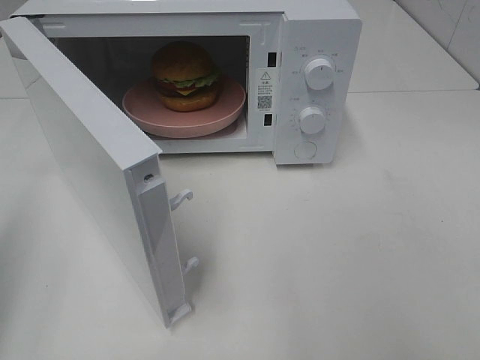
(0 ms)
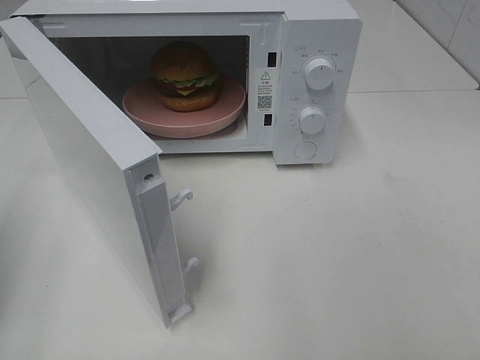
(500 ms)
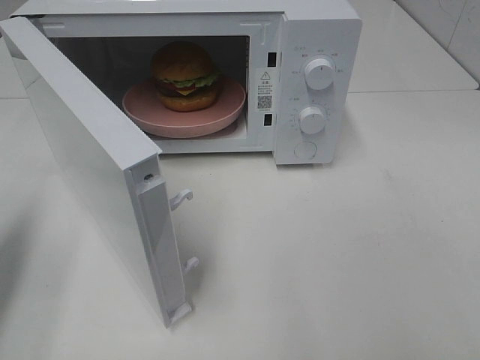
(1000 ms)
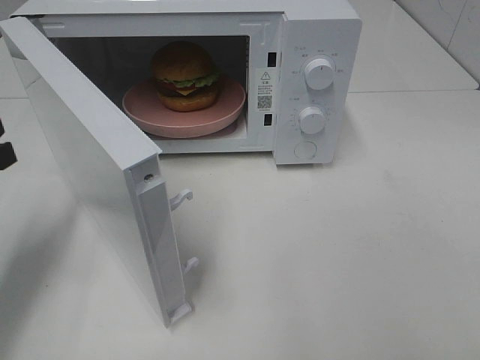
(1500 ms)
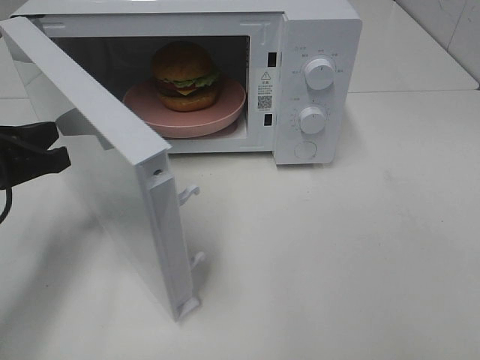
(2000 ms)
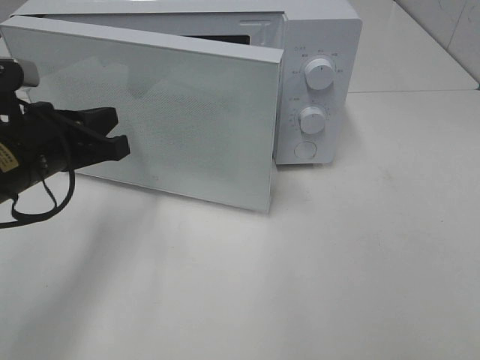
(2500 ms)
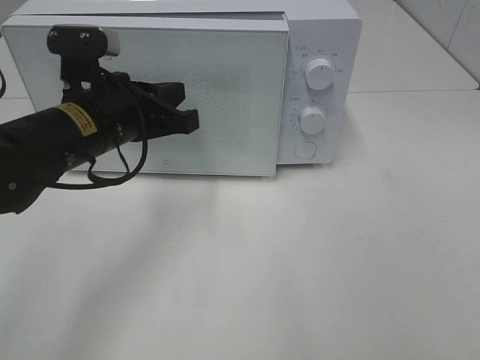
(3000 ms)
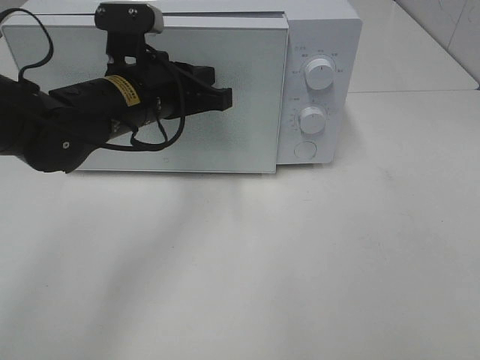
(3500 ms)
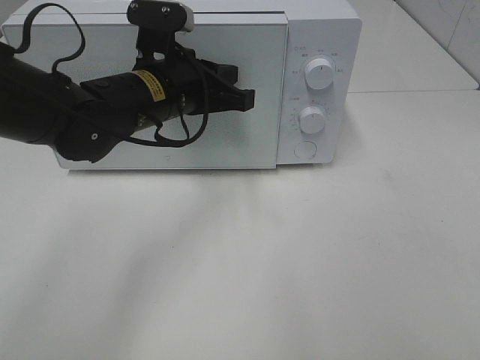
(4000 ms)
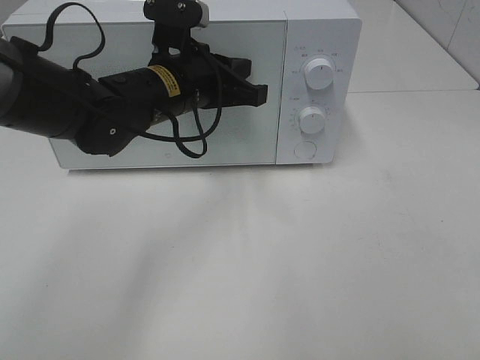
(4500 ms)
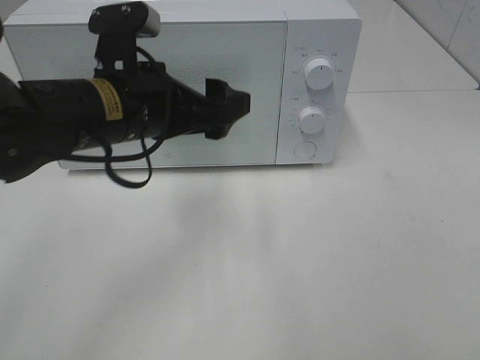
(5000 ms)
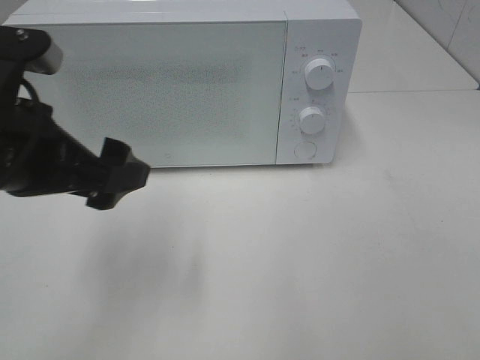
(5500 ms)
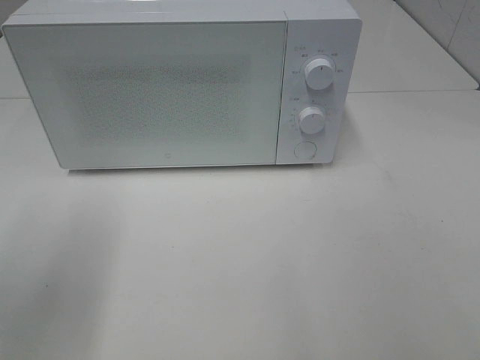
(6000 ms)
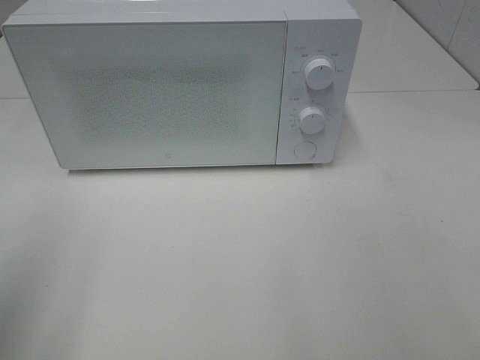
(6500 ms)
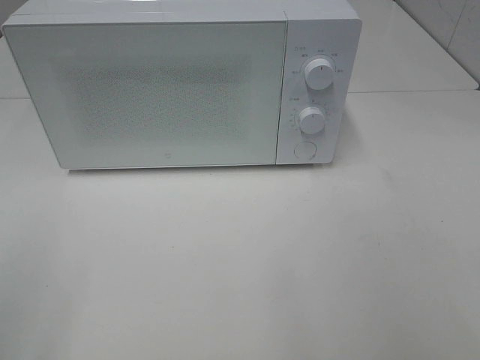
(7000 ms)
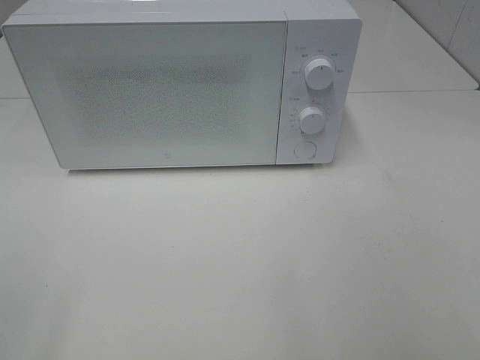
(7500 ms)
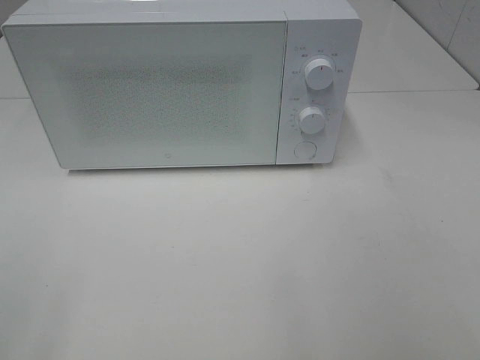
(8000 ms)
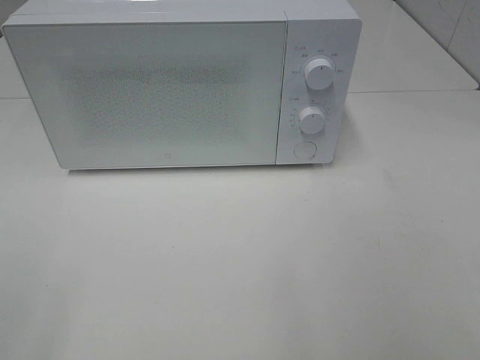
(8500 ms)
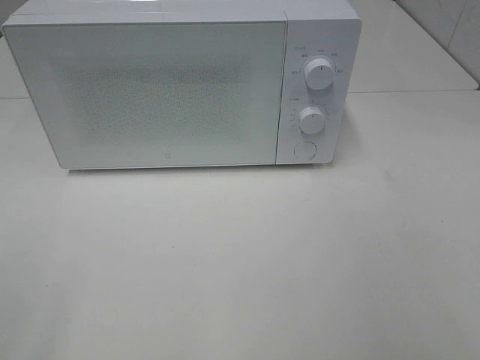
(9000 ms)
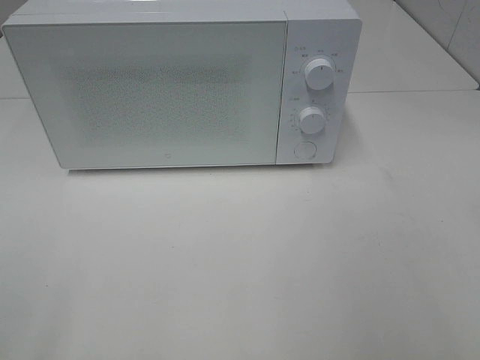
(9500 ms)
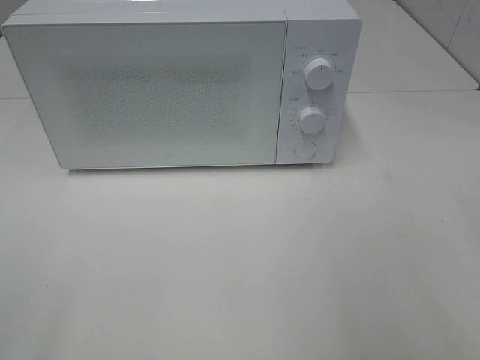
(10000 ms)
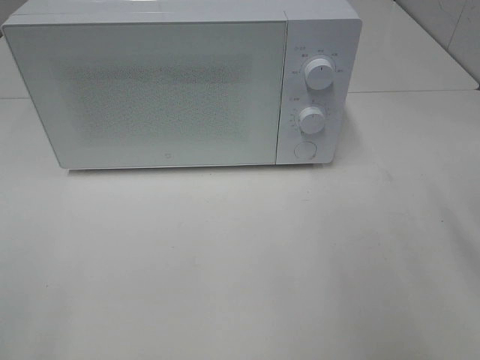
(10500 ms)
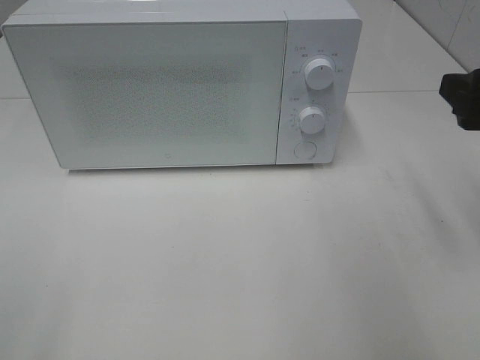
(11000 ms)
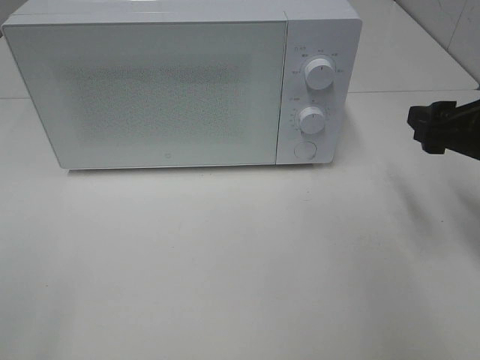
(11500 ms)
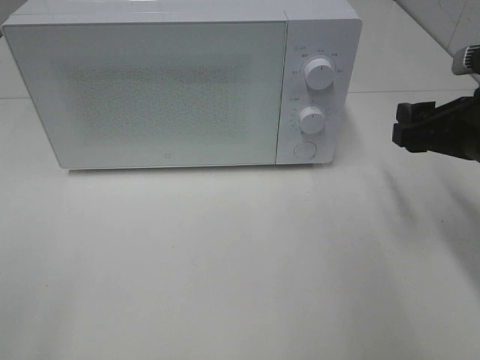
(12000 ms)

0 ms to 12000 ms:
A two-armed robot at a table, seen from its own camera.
Task of the whole recording: Heat the burger.
Step, 0 ms to 4500 ms: Left hand: close the microwave door.
0 ms to 2000 ms: The left gripper travels forward, downward and to the right by approximately 20 cm.
2000 ms to 4000 ms: The left gripper heads to the right and forward, covering roughly 20 cm.
4000 ms to 6000 ms: The left gripper travels to the left, backward and upward by approximately 25 cm, and opens.
6000 ms to 8000 ms: The left gripper is displaced backward by approximately 15 cm.
10000 ms to 12000 ms: The right gripper moves forward and downward, about 20 cm.

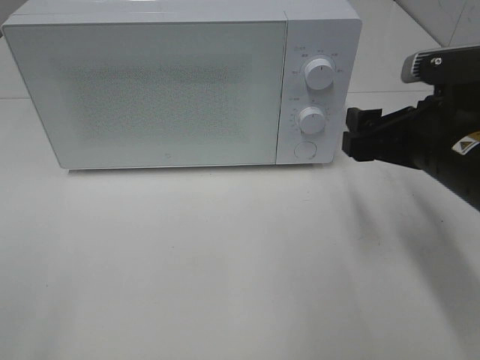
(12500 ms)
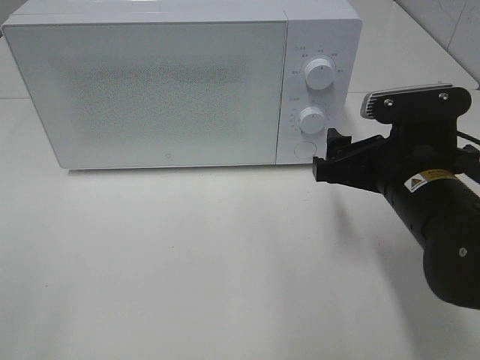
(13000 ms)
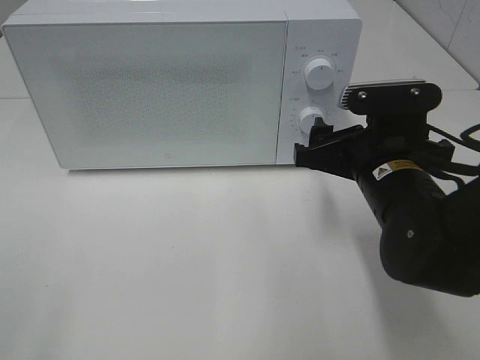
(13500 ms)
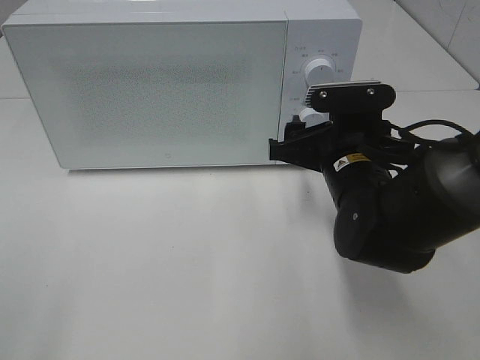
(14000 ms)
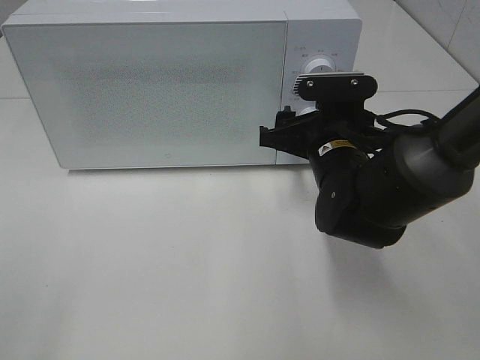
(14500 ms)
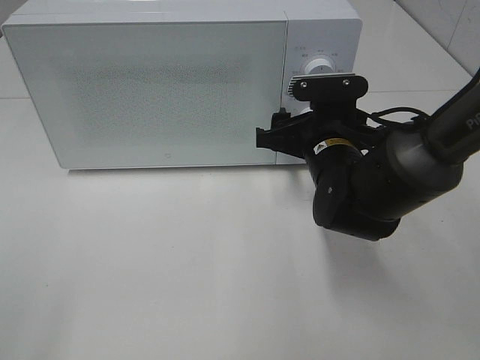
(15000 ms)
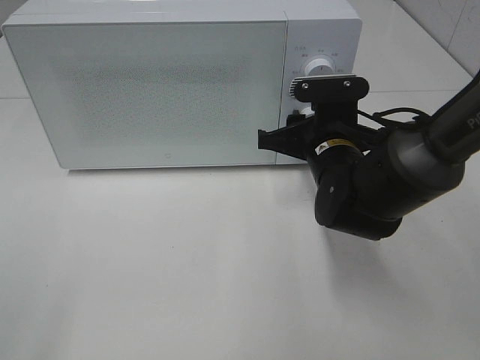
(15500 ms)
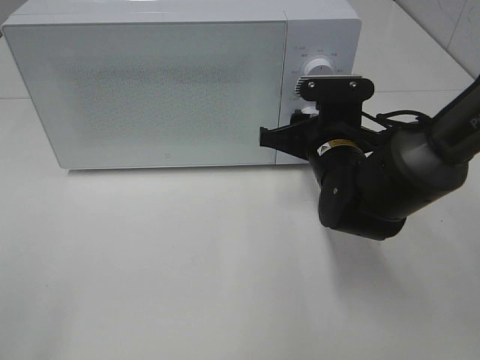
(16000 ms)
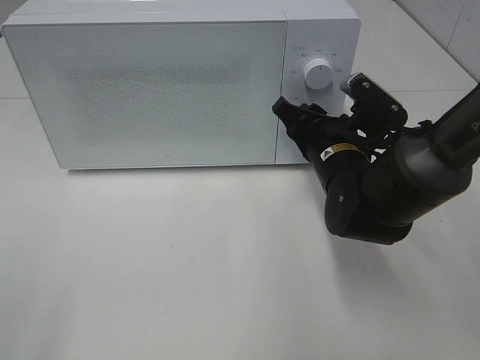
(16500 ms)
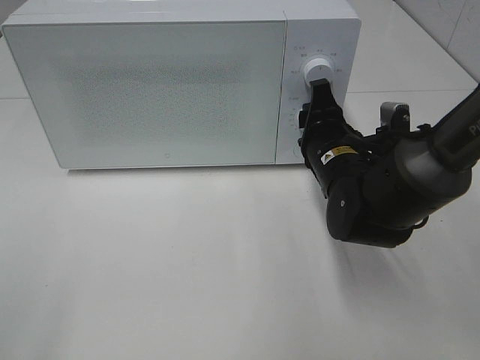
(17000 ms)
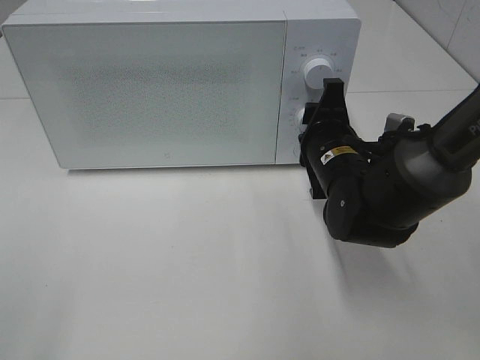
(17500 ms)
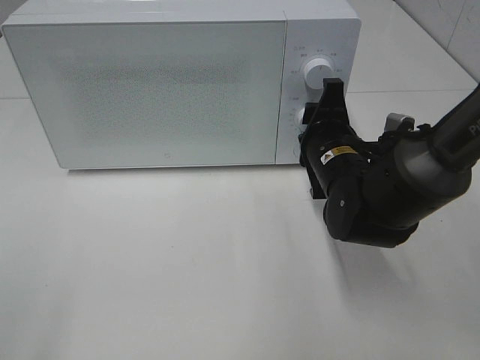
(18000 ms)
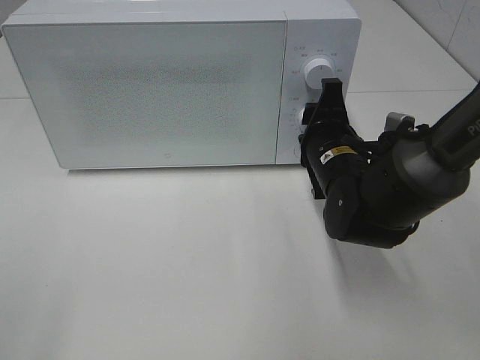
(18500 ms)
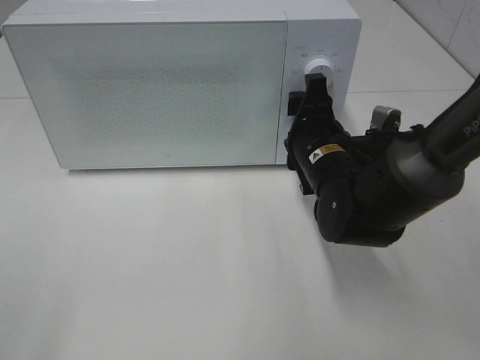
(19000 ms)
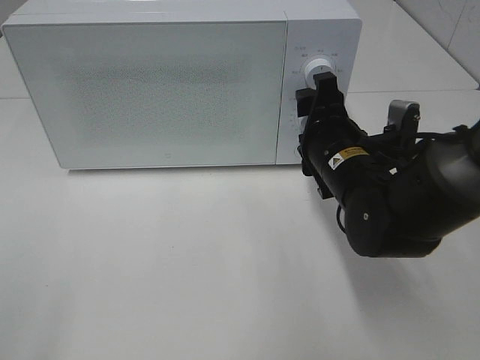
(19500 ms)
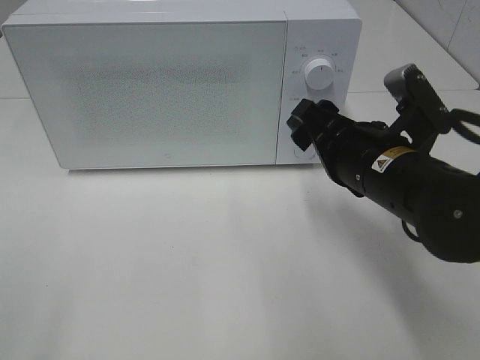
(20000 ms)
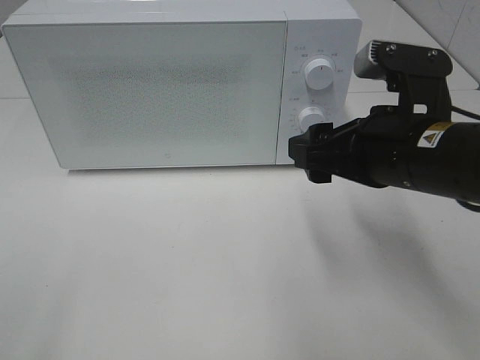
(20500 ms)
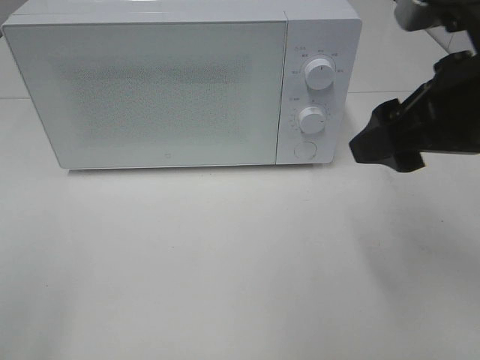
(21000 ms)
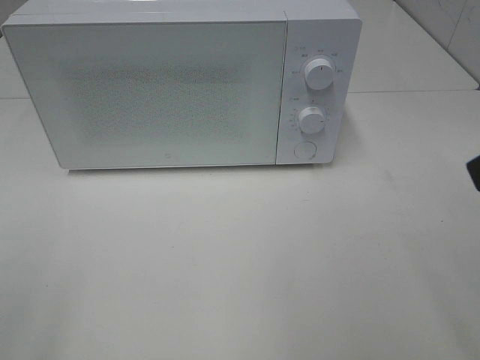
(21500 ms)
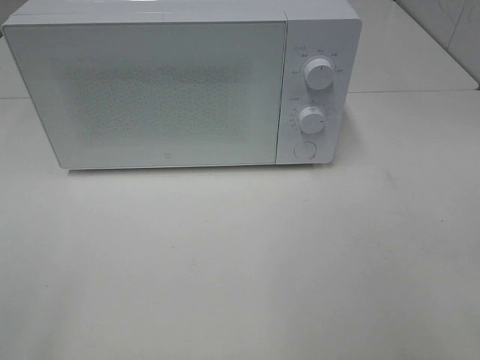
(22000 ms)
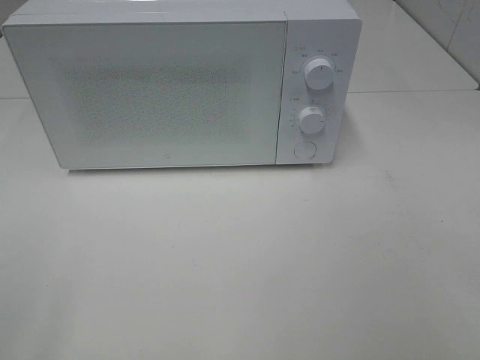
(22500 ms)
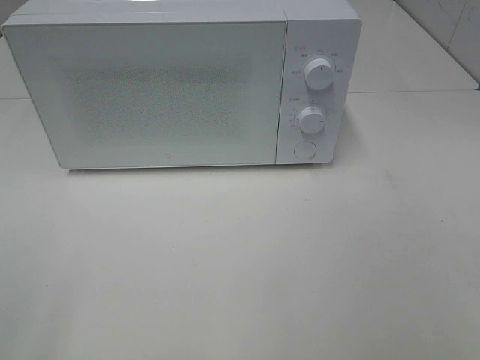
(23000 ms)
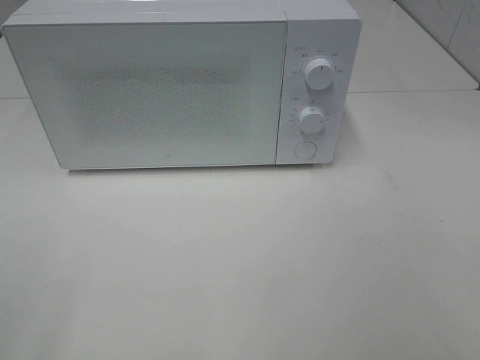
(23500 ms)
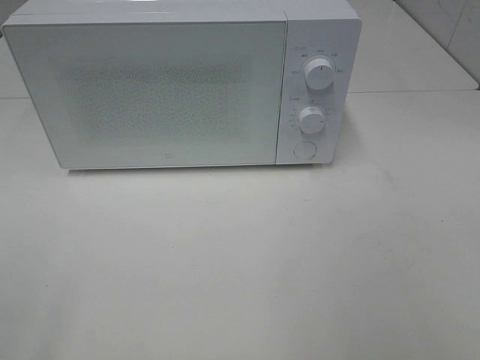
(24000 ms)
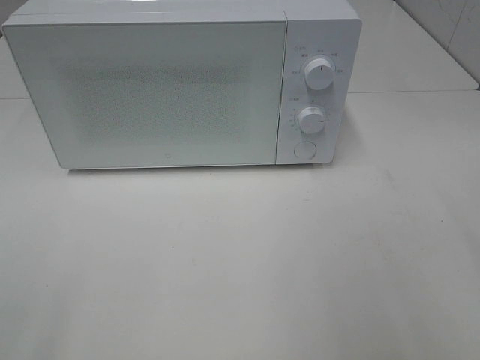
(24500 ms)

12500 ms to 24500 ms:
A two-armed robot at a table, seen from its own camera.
Task of the whole recording: Heat the burger.
Step, 12500 ms to 18500 ms: Right hand: twist timer button.
12500 ms to 14500 ms: The right gripper travels to the left, forward and downward by approximately 10 cm.
14500 ms to 16500 ms: The right gripper closes up.
18500 ms to 20500 ms: The right gripper goes some 15 cm upward and backward, and opens up.
20500 ms to 22500 ms: The right gripper shifts about 25 cm backward and to the right.

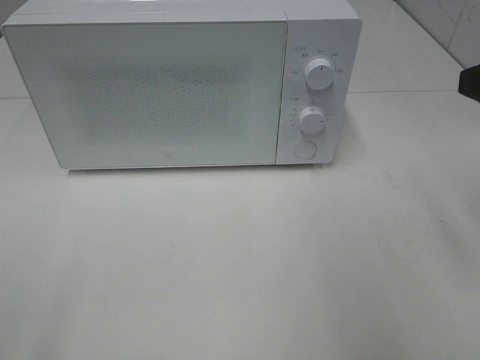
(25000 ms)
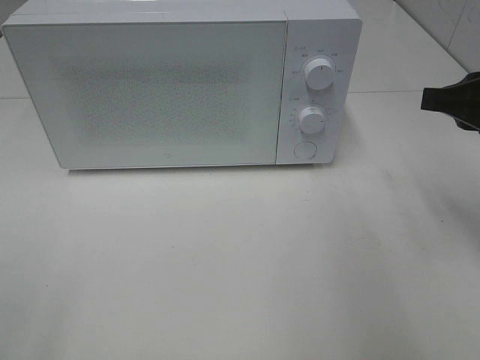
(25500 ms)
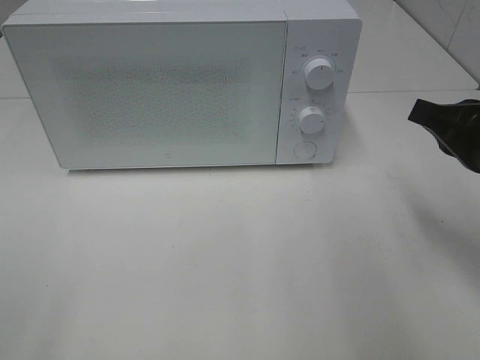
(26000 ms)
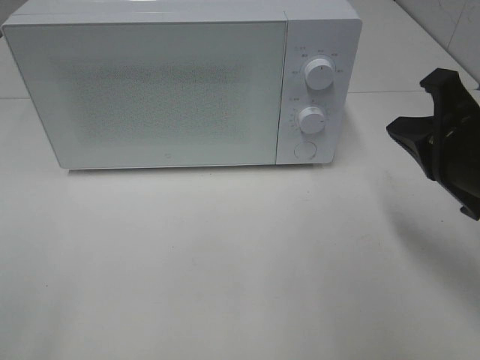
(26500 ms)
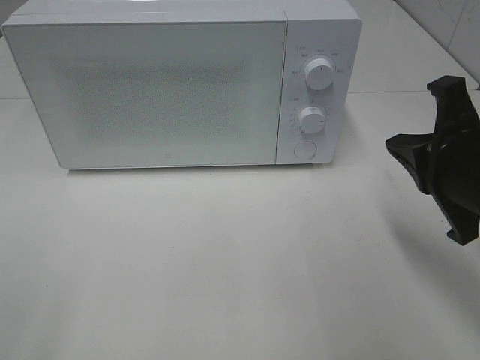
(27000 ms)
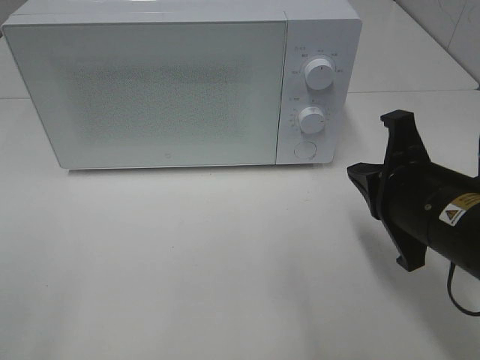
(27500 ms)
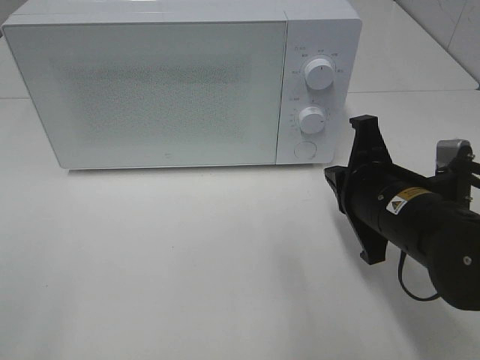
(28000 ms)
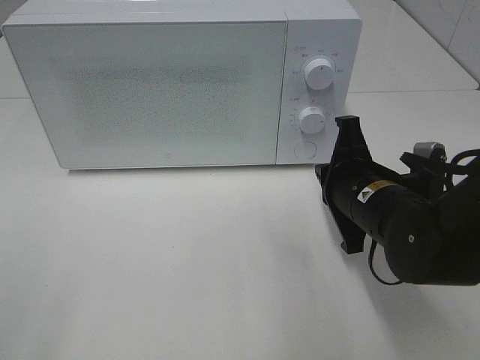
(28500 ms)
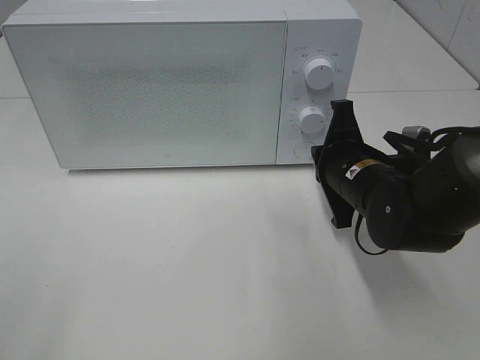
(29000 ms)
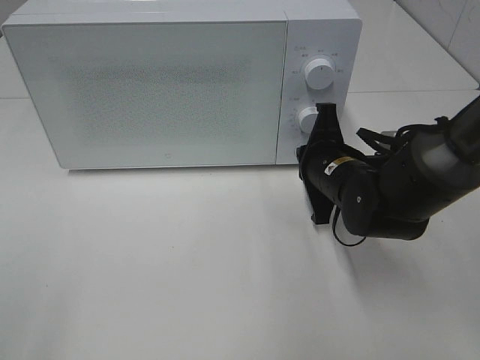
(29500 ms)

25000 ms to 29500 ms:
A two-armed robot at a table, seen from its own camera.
Task of the whole recording: Heat the burger.
25000 ms to 27000 ms: The right gripper moves downward and to the left, roughly 10 cm, and closes up.
27000 ms to 29500 ms: The right gripper travels forward, downward and to the left by approximately 20 cm.
